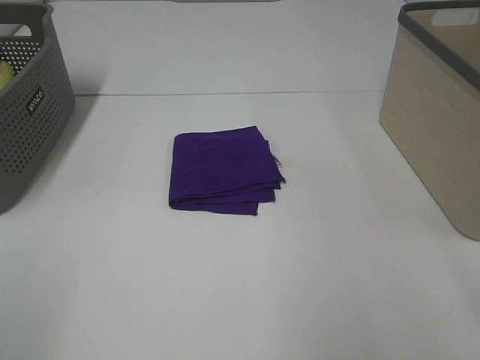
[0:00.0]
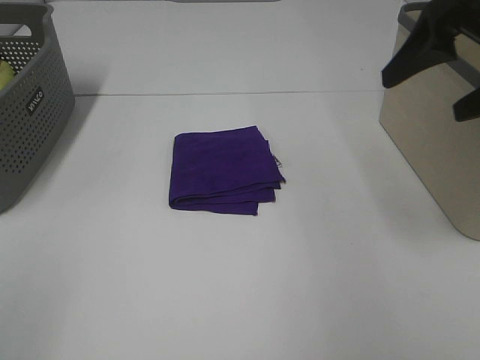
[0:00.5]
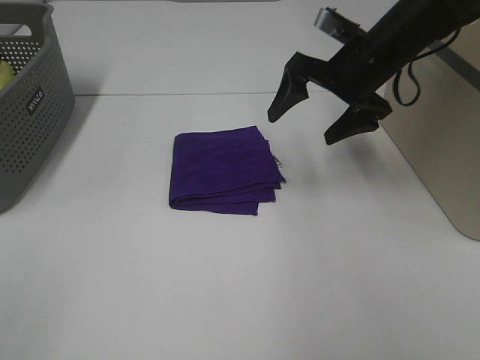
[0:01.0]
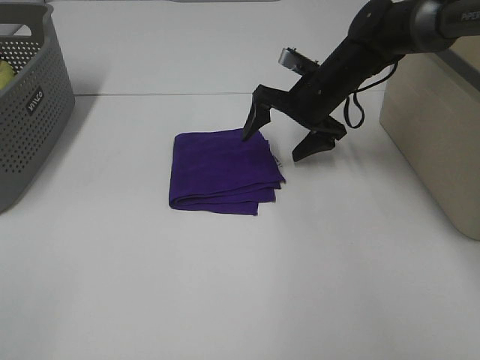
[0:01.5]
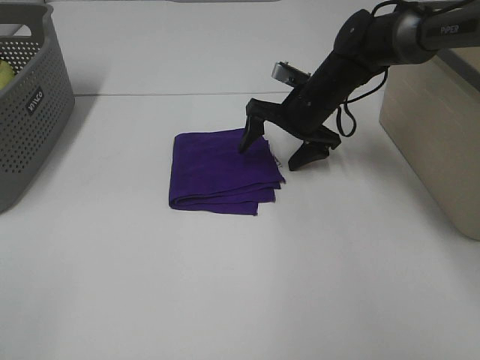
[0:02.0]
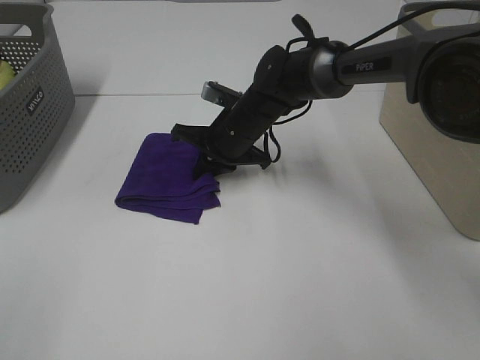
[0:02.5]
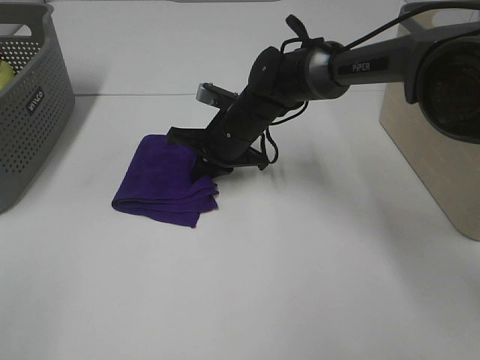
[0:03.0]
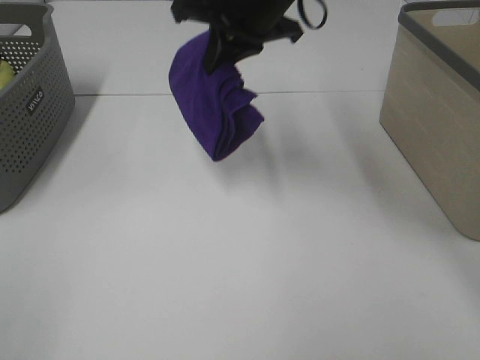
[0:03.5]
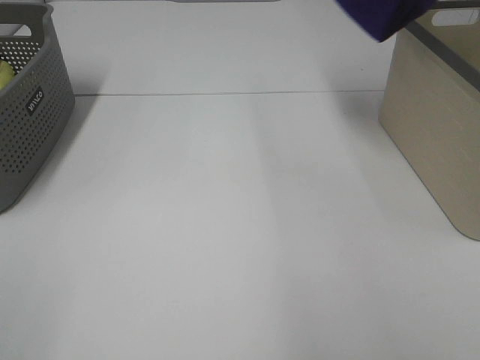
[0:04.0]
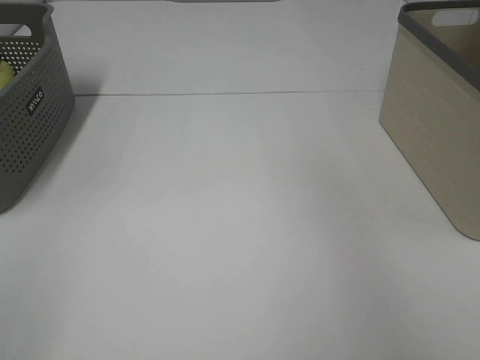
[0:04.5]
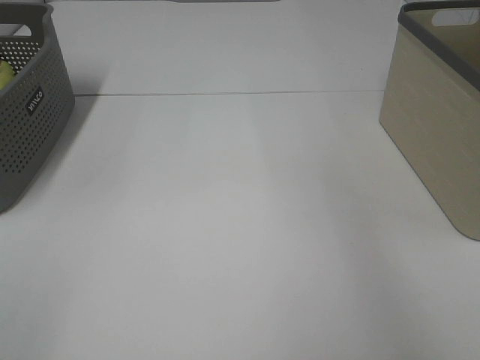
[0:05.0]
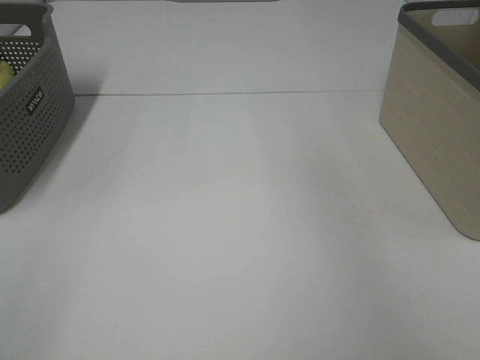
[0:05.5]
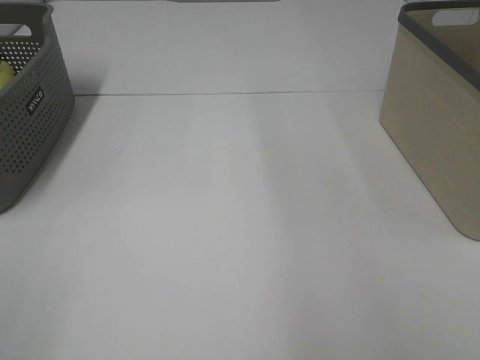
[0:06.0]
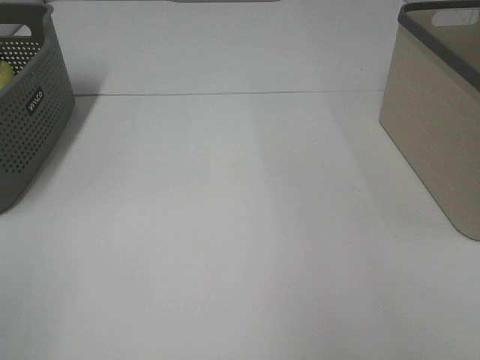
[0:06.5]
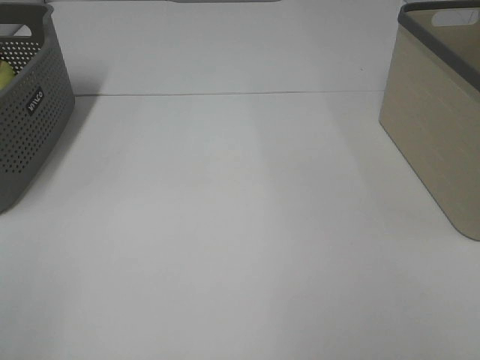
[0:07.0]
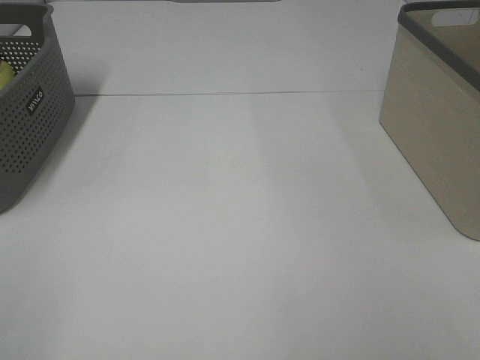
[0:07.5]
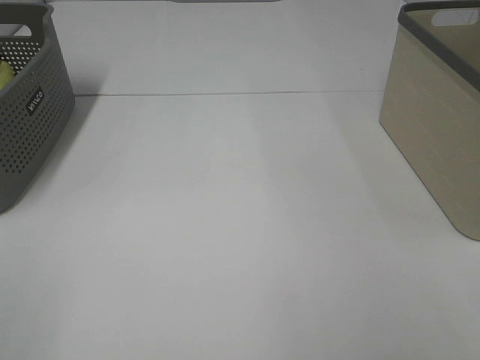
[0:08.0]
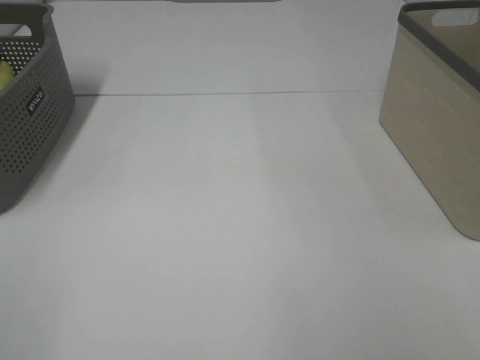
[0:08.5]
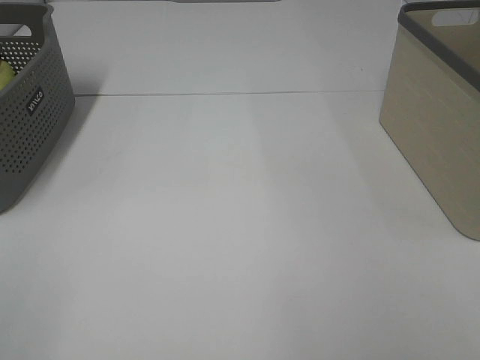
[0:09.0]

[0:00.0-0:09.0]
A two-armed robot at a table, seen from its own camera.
Step, 0:00.0 to 0:02.5: Right hand: grab the folded purple towel.
Step, 0:03.0 to 0:05.0: Right hand: place the purple towel in right basket.
0:00.0 to 0:02.0: The right gripper travels forward, downward and to the left by some 40 cm.
0:02.0 to 0:04.5: The right gripper shifts approximately 40 cm upward and to the right, and closes.

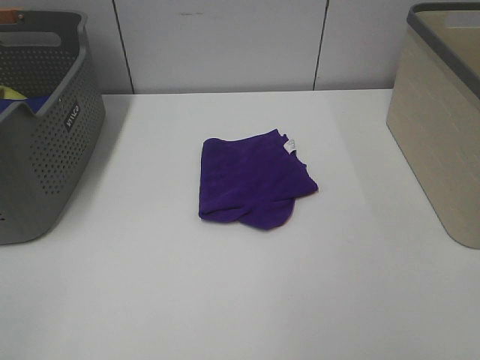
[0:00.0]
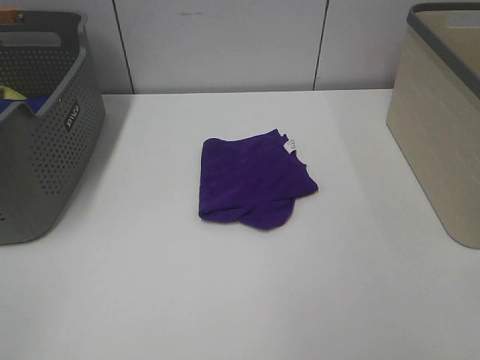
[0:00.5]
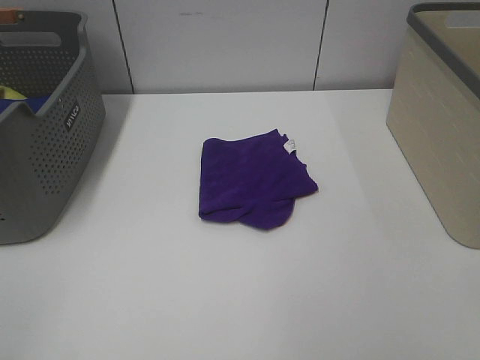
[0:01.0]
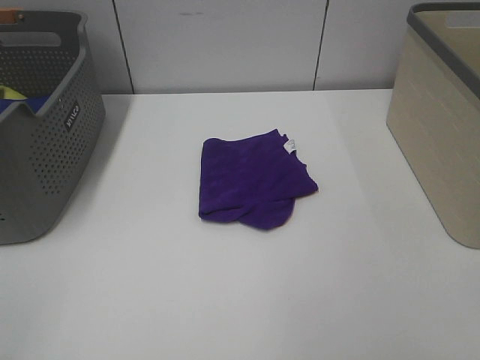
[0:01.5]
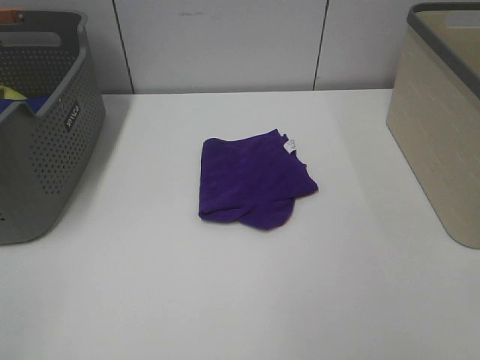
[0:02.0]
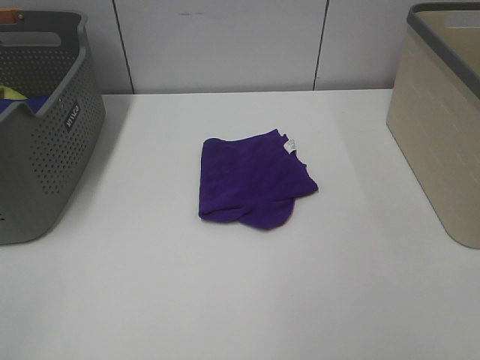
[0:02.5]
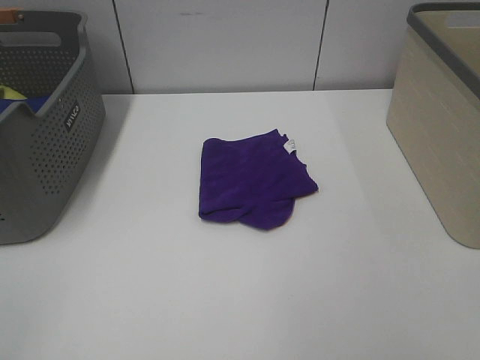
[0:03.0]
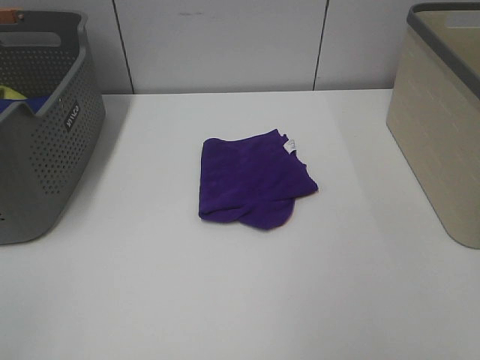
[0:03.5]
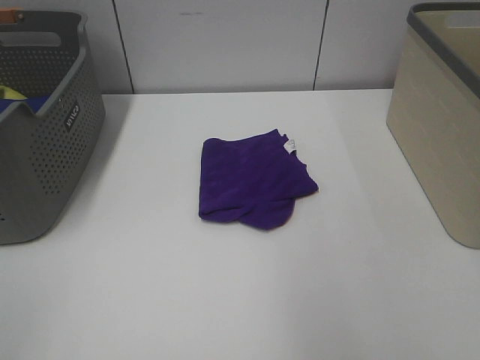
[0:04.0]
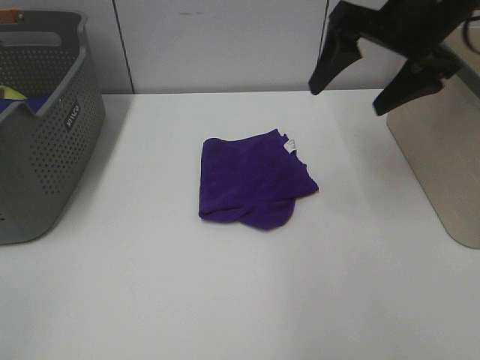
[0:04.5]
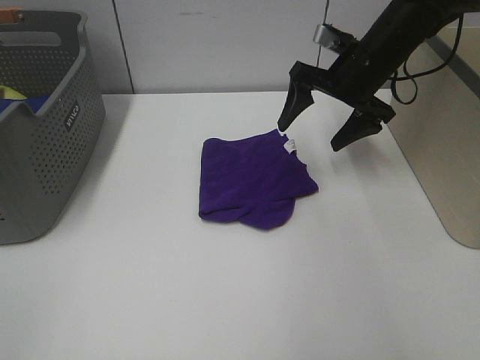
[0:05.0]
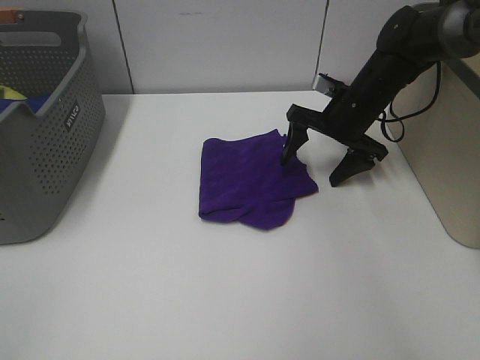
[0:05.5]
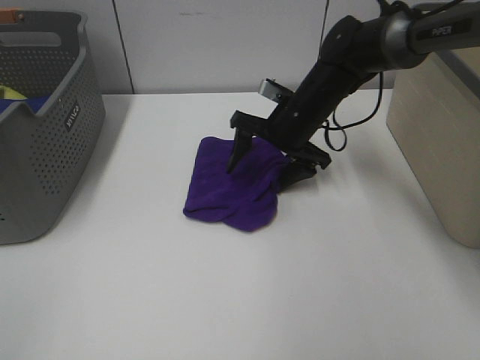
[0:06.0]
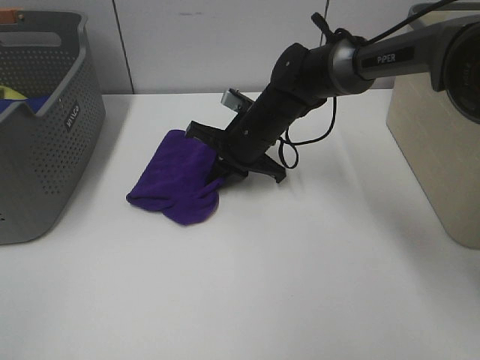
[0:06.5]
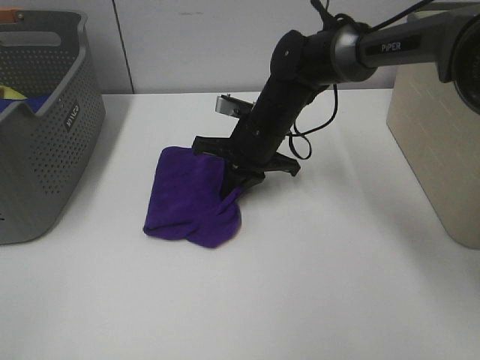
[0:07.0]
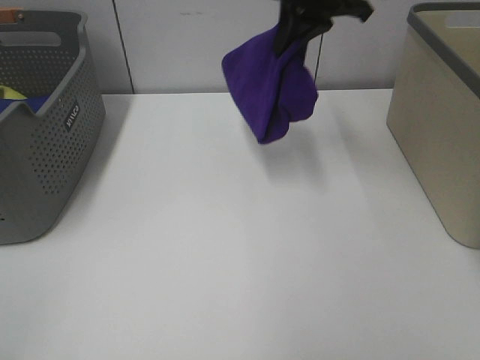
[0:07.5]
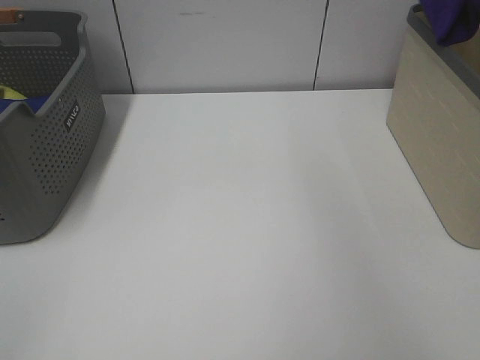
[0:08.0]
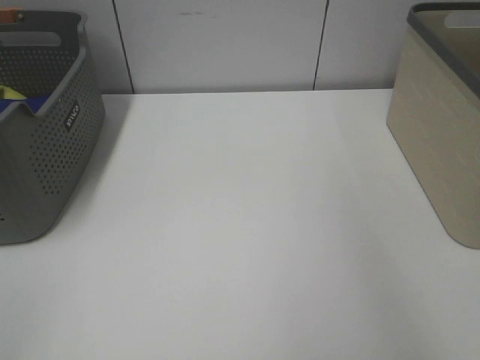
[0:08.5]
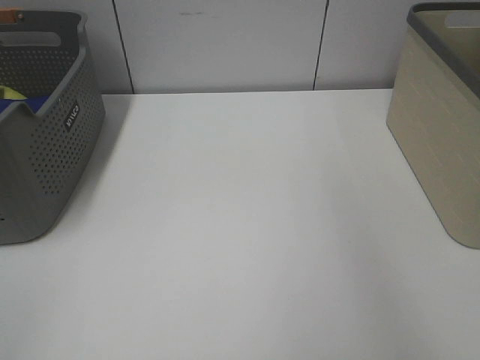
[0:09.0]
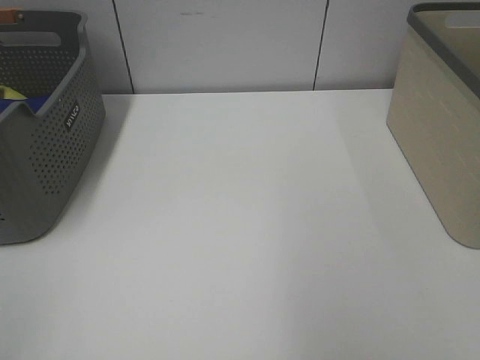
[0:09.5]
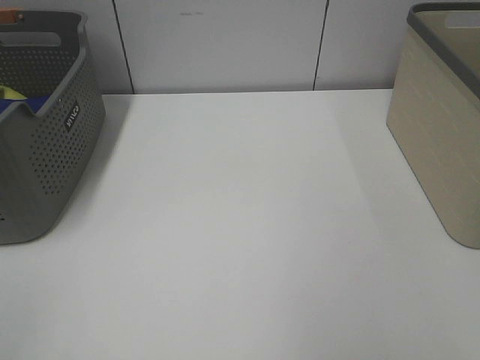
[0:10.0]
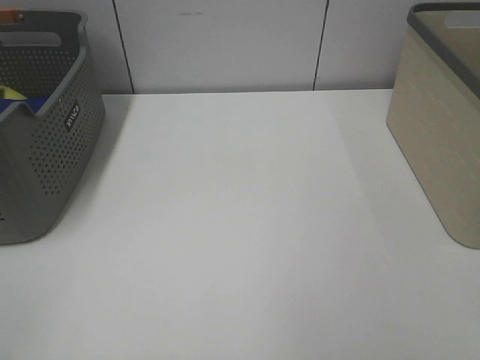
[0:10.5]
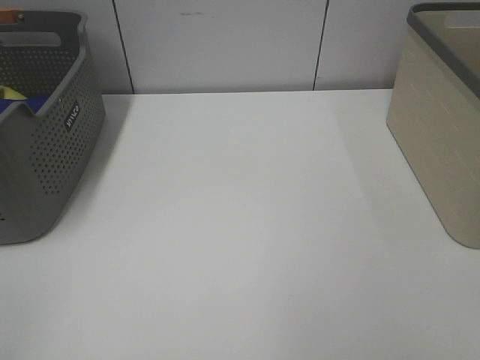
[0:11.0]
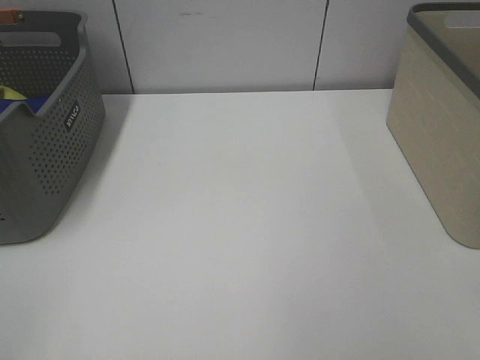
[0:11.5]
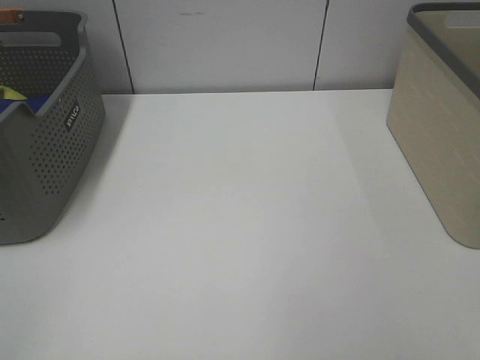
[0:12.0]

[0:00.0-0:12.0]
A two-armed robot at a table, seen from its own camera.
Step, 0:00.0 to 0:06.0: Right hand: grab the folded purple towel.
Step, 0:06.5 to 0:09.0: Right hand: place the purple towel in right basket.
0:00.0 to 0:02.0: Both grippers stay about where they are.
0:04.0 to 0:06.0: The right gripper heads downward, forward and to the left, covering about 40 cm.
0:06.0 to 0:08.0: The right gripper goes about 40 cm upward and to the right, and closes up.
0:08.0 to 0:10.0: The right gripper travels backward by some 40 cm, and opens.

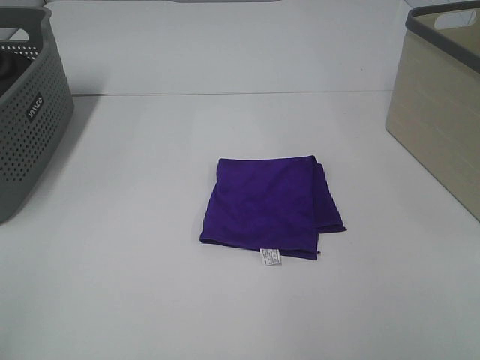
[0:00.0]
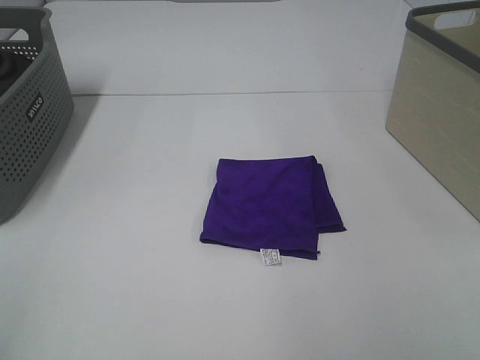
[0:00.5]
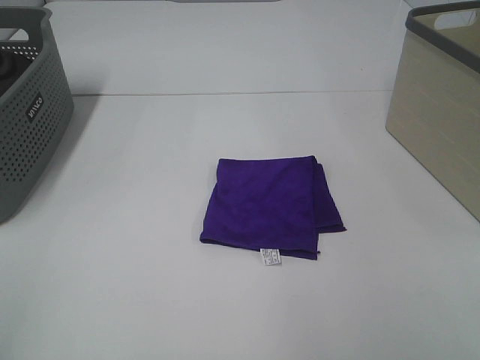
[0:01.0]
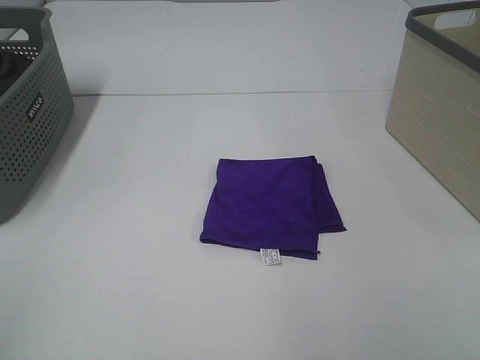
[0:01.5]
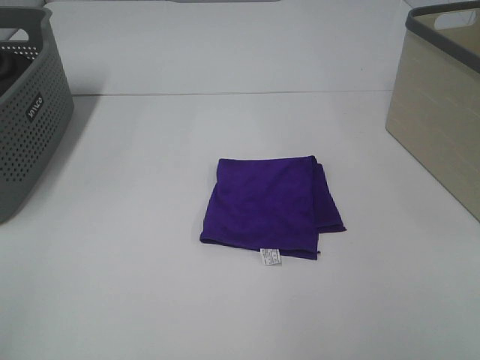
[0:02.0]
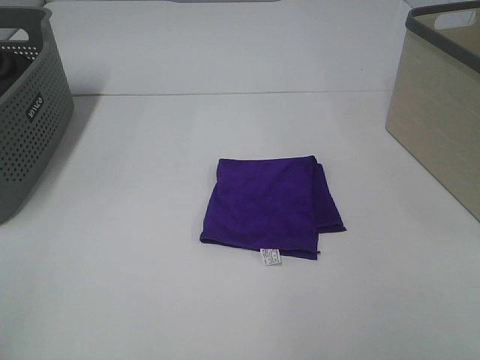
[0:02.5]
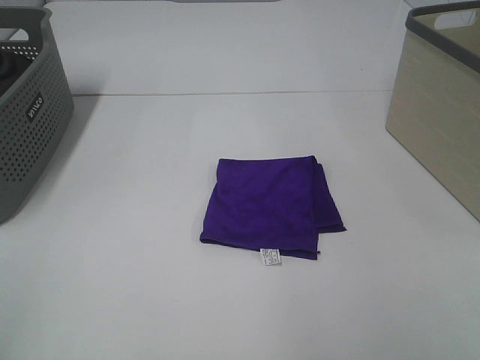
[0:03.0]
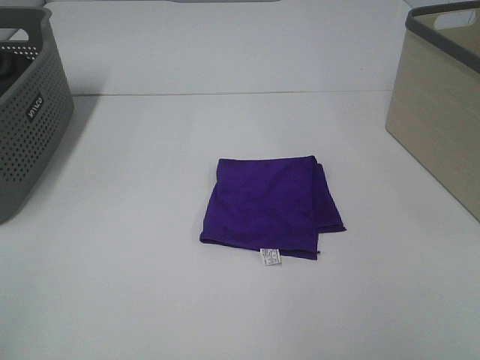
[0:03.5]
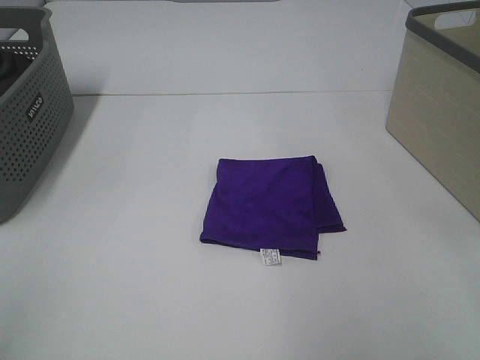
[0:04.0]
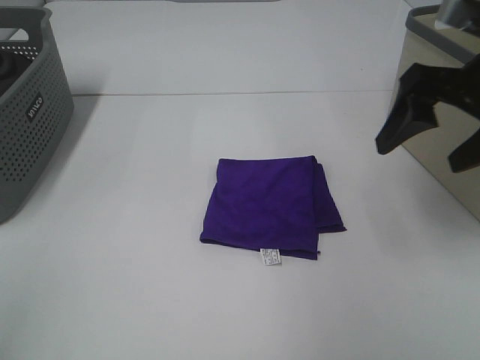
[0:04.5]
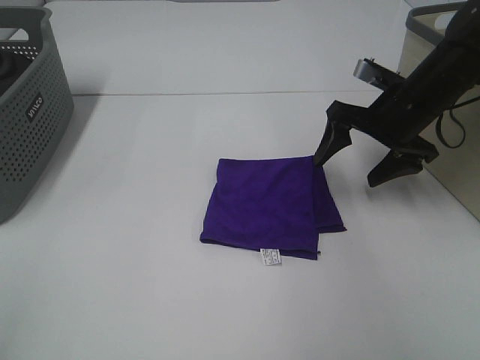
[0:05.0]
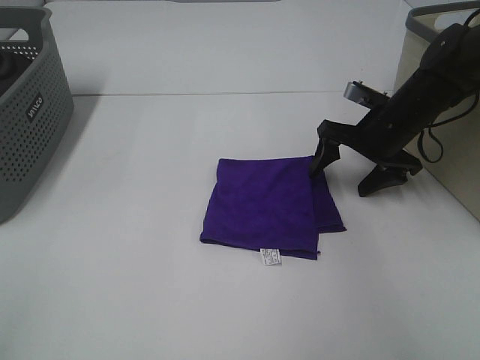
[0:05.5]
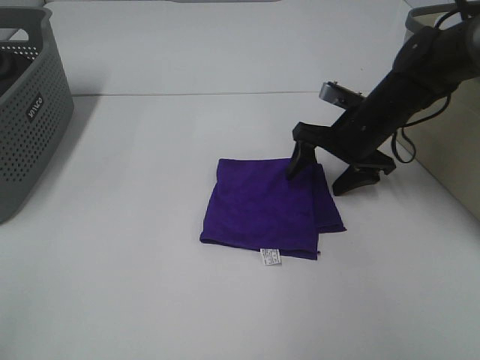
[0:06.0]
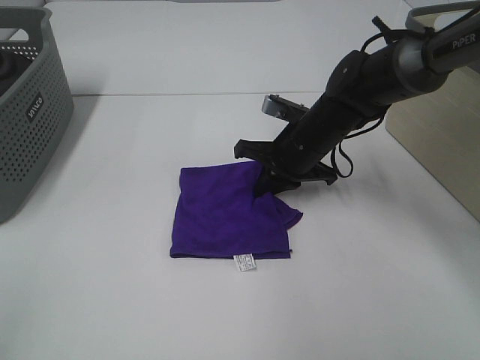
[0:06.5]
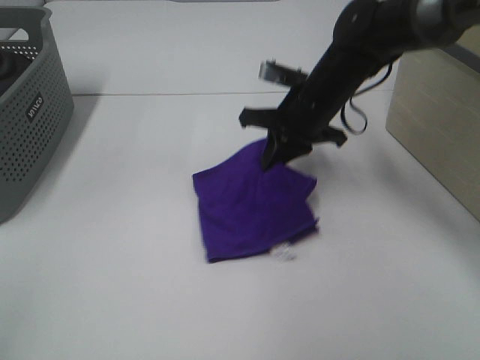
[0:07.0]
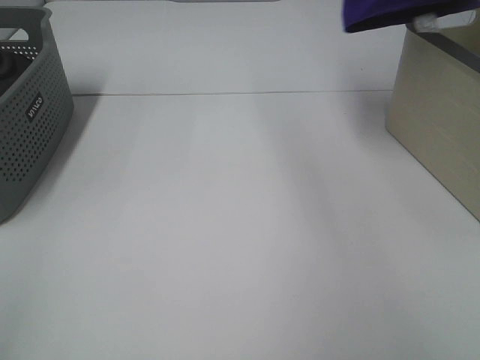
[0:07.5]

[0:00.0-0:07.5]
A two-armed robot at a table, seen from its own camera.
Step, 0:00.0 to 0:06.5: Right hand: grab the folded purple towel.
0:00.0 to 0:02.0: Both grippers stay about where they are.
0:04.0 to 0:05.5: The right gripper travels forward and downward by roughly 35 cm.
0:05.5 to 0:07.5: The right gripper shifts approximately 35 cm upward, and closes up.
